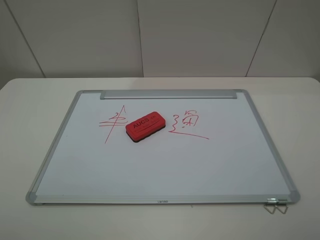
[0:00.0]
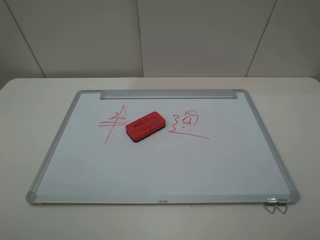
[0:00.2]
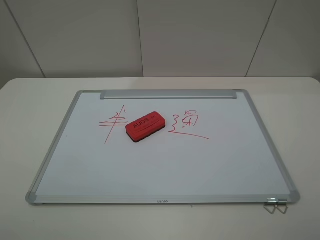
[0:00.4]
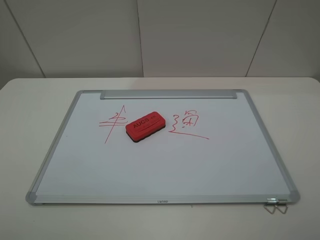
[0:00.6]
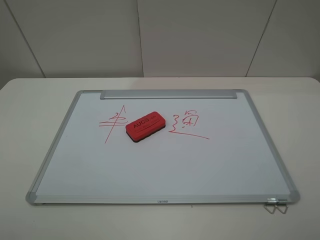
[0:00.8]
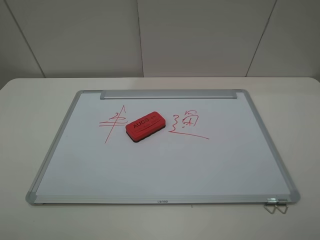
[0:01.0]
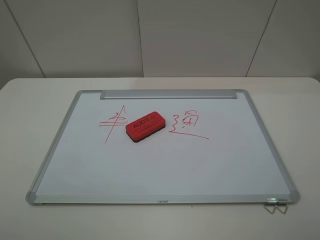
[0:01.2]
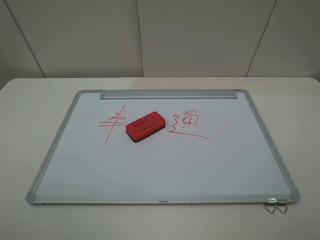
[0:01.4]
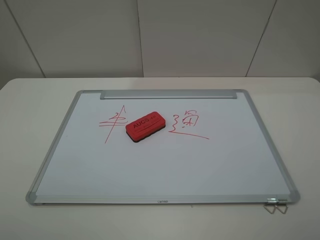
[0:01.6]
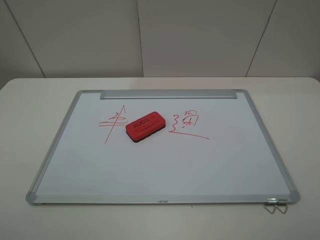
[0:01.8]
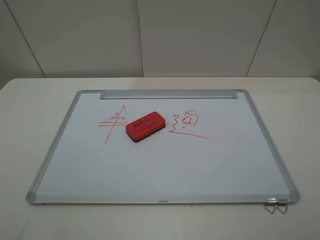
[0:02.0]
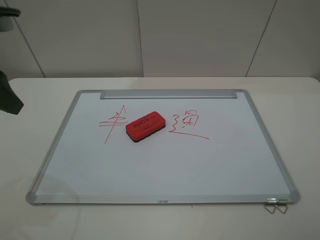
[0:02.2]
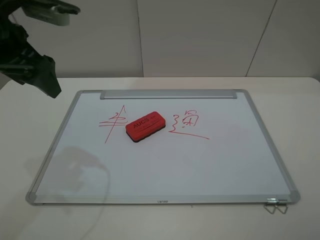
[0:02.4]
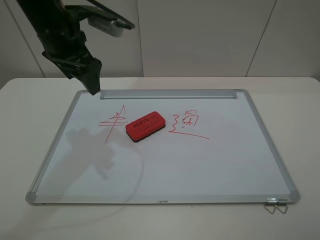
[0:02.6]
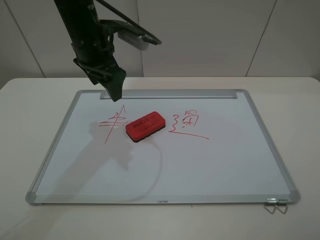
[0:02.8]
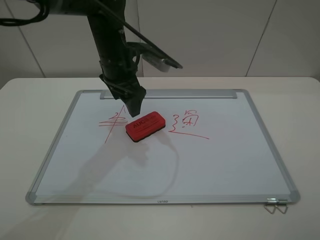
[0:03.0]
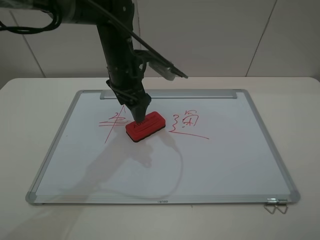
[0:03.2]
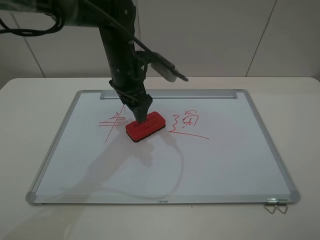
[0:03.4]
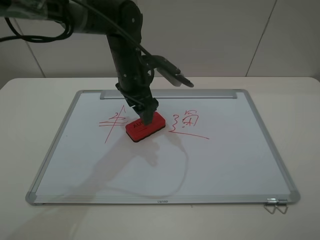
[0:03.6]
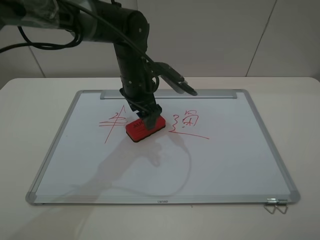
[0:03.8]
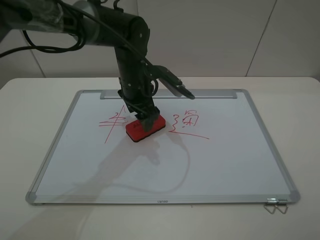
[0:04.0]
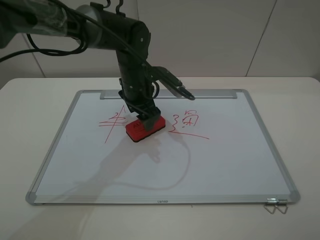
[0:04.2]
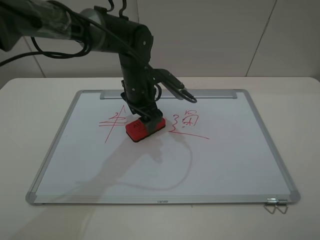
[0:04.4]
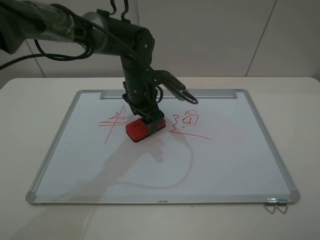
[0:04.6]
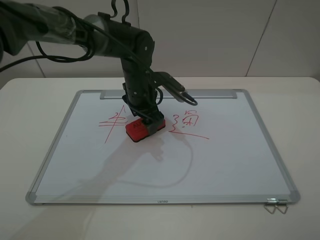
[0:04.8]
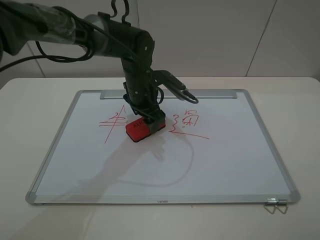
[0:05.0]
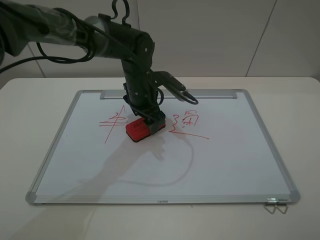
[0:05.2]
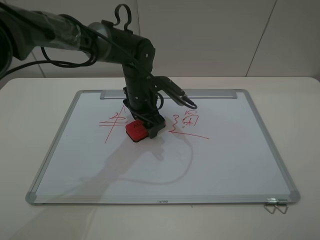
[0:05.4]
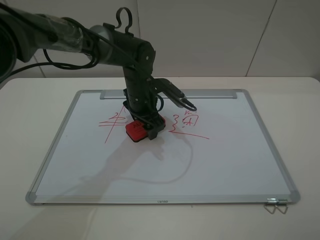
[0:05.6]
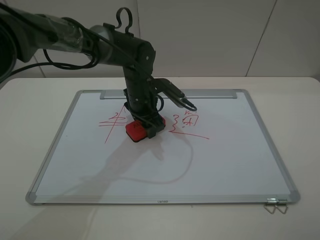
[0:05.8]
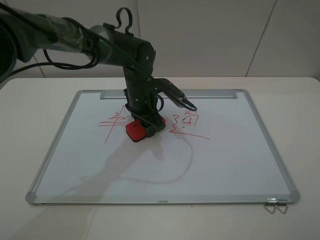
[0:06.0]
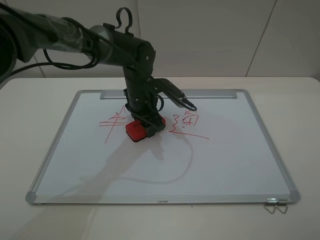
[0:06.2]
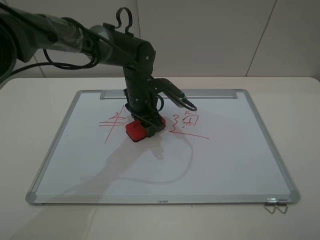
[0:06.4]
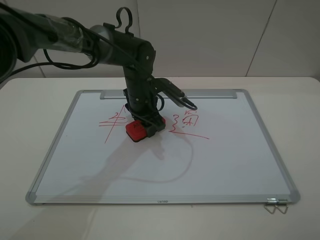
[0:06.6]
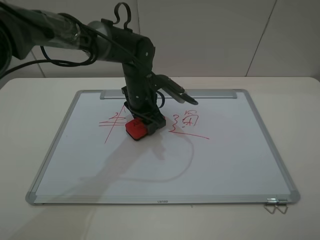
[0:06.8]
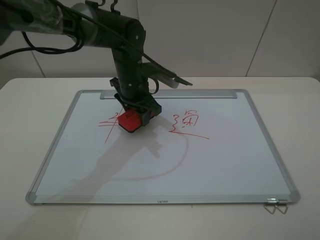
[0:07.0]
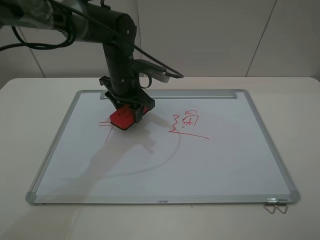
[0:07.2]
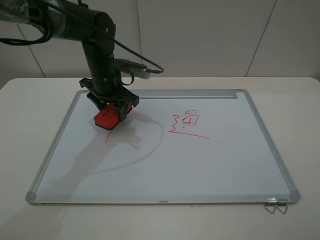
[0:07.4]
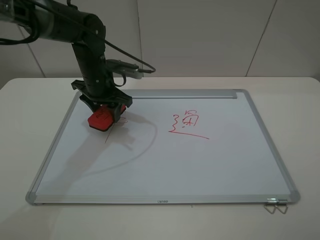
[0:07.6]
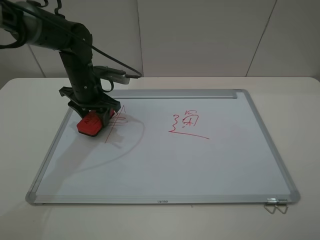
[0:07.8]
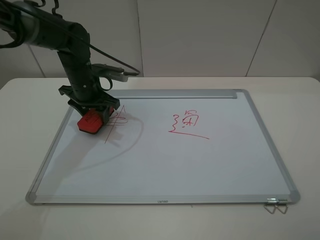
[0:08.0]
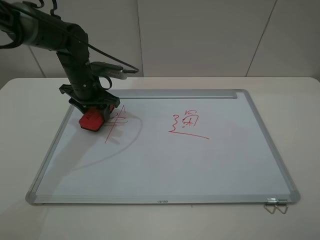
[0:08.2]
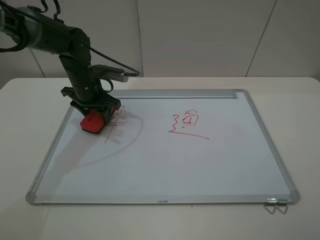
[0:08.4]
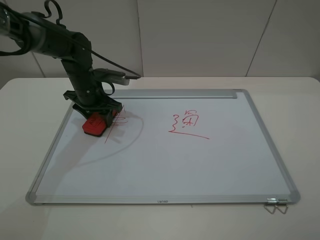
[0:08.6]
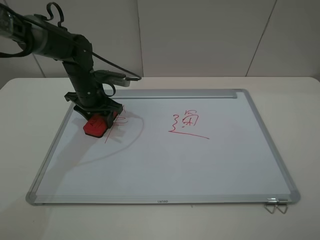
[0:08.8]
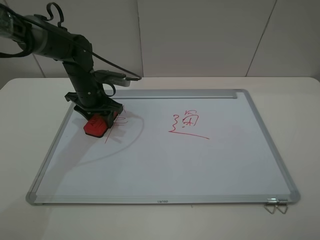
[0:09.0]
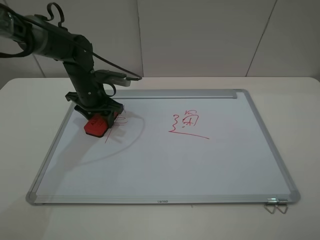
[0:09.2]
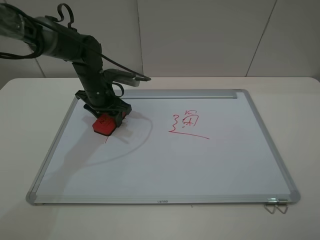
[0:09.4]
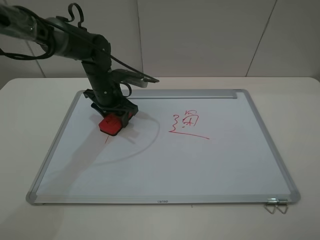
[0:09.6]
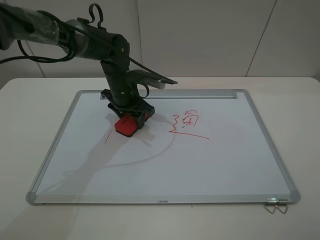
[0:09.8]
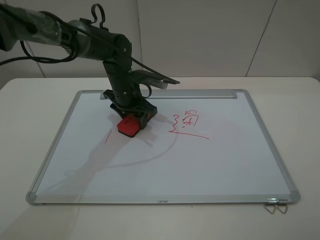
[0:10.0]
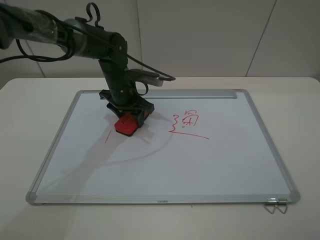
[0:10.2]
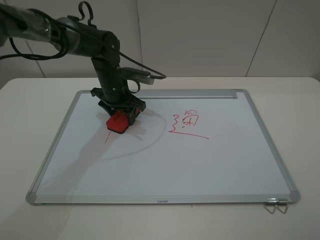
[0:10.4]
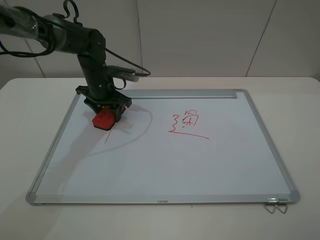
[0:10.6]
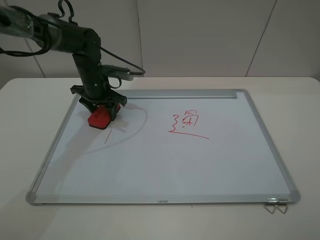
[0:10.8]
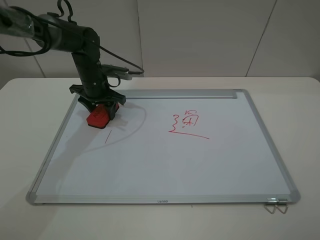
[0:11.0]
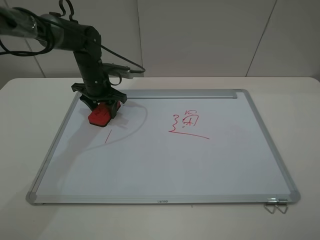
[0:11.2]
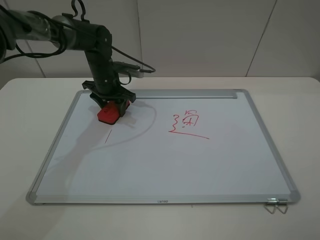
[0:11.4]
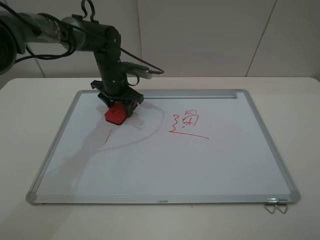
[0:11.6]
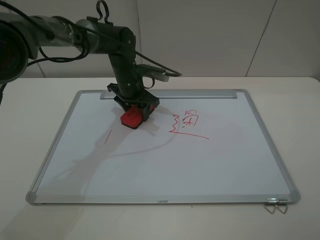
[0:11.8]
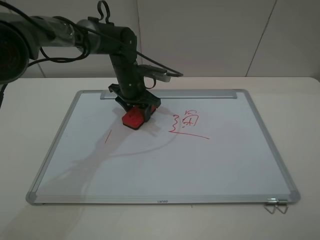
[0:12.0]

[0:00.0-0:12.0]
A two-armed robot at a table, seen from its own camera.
Step, 0.0 to 5.8 s: Grasp the eraser with the left gripper.
0.0 to 1.6 s: Neither gripper changes place.
1.6 to 3.0 s: The left gripper heads forward and to the right, covering some 40 cm.
3.0 to 4.4 s: The left gripper moves downward, approximately 5 cm.
4.4 to 6.0 s: The left gripper closes its fingers.
6.0 to 7.6 s: The left gripper goes roughly 10 cm to the left.
7.6 to 9.0 s: The grippers move only a little.
10.4 to 12.0 s: The left gripper shifts approximately 5 cm to the right.

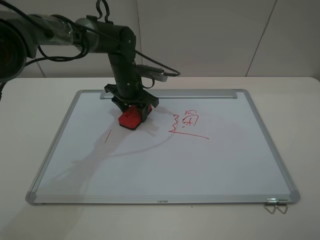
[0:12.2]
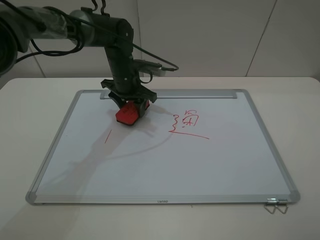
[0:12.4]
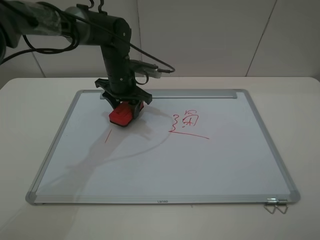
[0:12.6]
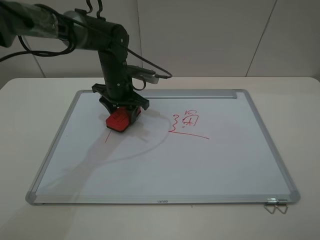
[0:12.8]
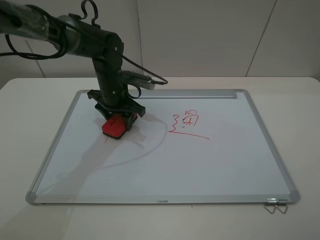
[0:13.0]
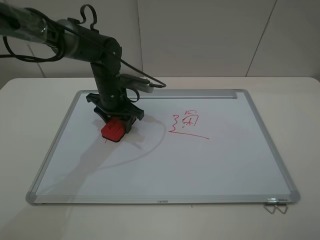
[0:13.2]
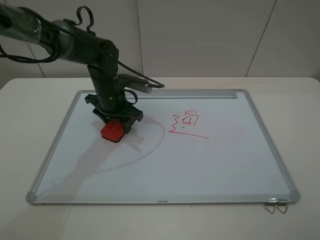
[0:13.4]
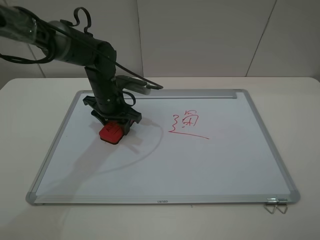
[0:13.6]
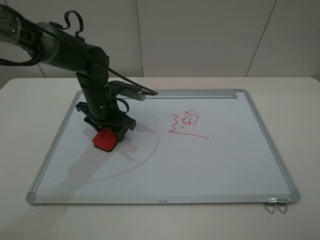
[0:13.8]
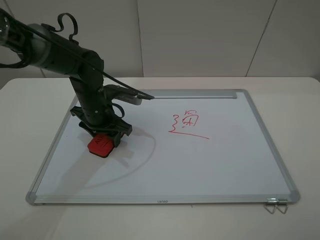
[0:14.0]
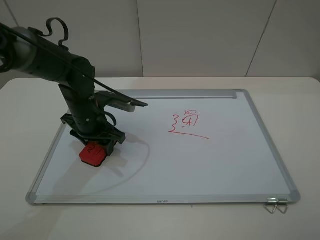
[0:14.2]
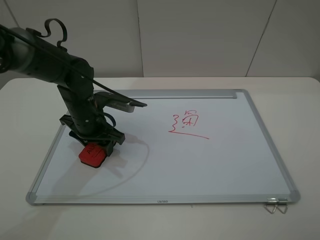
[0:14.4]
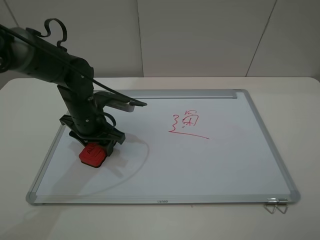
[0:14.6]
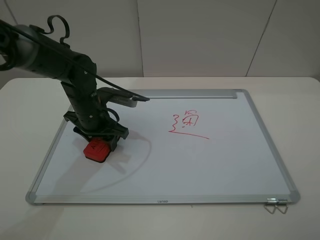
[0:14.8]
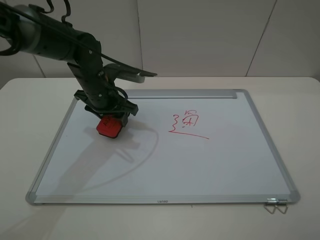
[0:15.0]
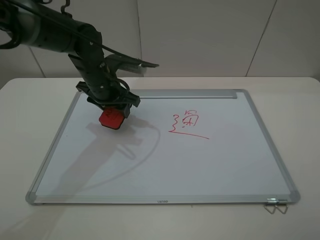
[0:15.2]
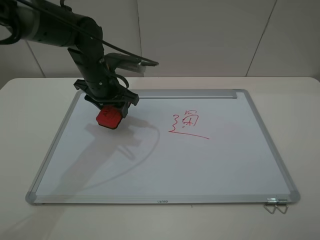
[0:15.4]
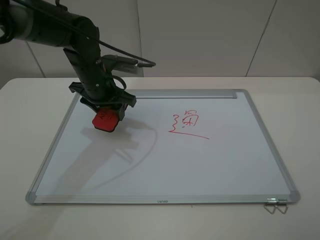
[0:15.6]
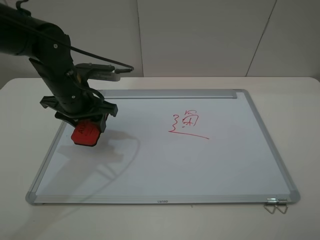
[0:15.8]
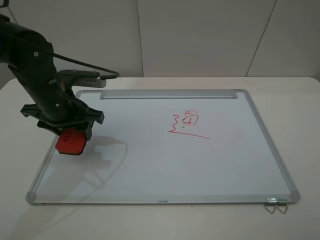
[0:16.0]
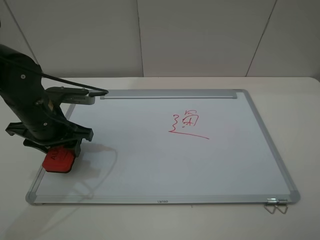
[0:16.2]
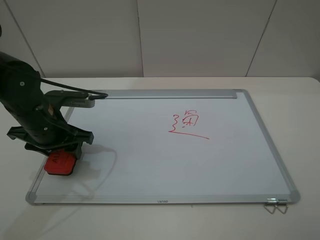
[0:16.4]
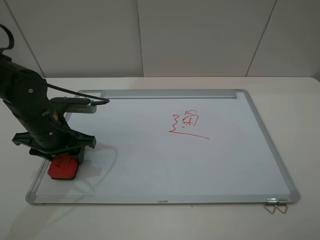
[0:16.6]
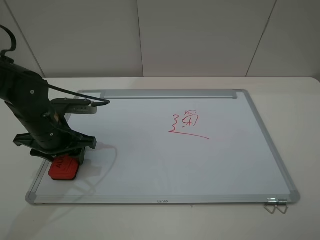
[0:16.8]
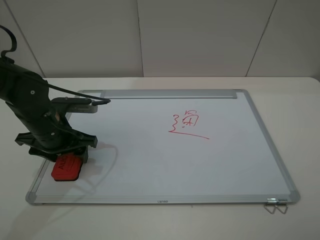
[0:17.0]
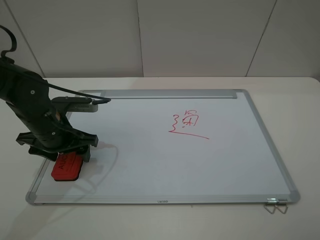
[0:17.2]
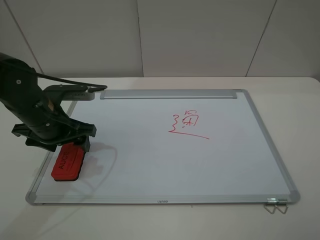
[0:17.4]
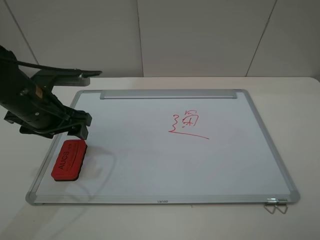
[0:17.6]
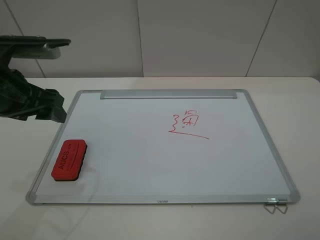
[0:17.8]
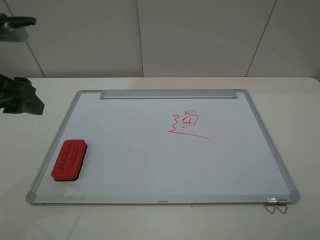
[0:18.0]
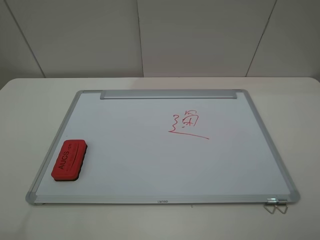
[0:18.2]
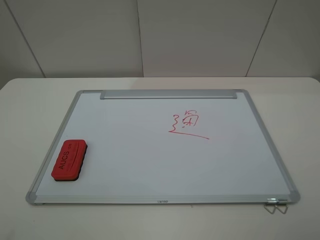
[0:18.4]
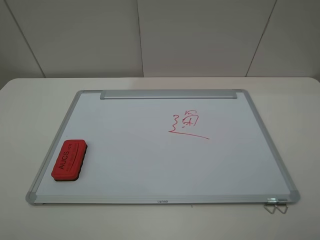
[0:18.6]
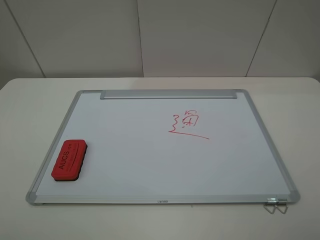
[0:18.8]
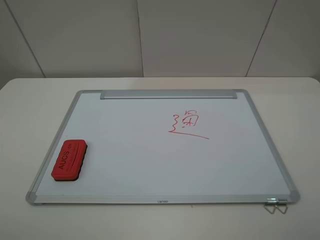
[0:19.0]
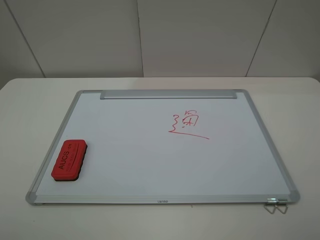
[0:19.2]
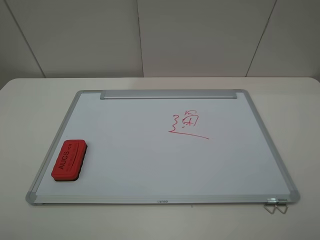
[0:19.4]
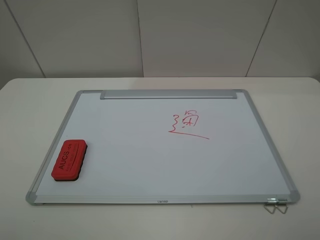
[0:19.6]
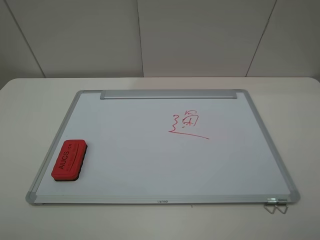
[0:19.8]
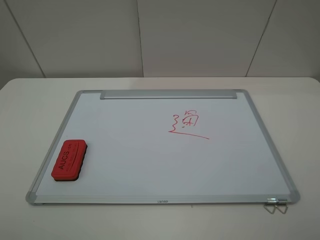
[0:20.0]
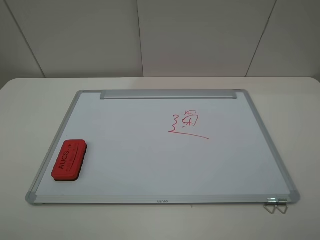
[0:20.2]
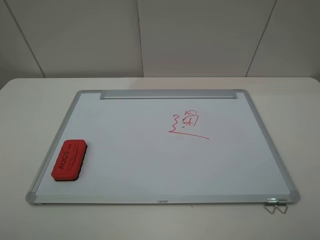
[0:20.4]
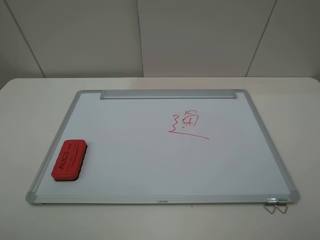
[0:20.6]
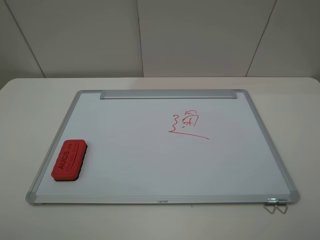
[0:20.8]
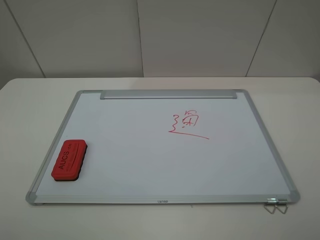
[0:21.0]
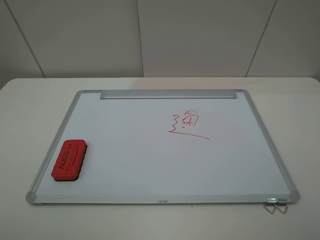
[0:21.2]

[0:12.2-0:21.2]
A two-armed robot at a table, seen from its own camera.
Step, 12.2 to 15.0 s: Grasp the eraser and wipe the blackboard with the left gripper.
Step, 15.2 to 17.4 s: Place the eraser with the left gripper.
12.2 to 13.8 s: The left gripper moves backward and to the left, some 10 cm.
13.8 to 15.2 s: The left gripper heads upward, covering about 5 cm.
15.2 to 16.6 s: The left gripper travels backward and to the left by roughly 15 cm.
16.6 to 18.2 s: The left gripper goes approximately 25 cm upward and backward, and opens up.

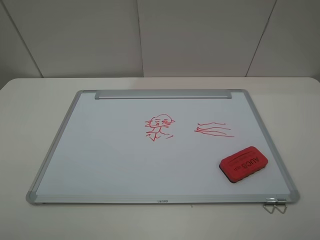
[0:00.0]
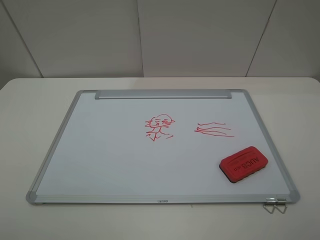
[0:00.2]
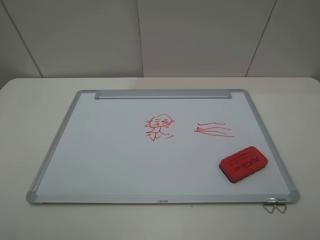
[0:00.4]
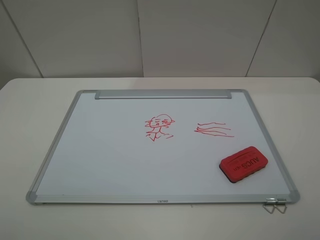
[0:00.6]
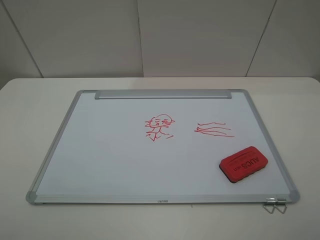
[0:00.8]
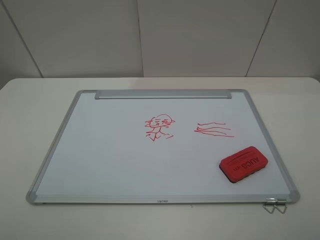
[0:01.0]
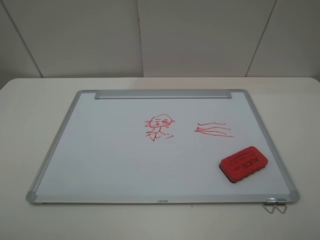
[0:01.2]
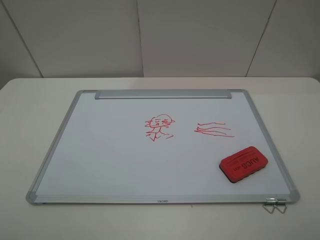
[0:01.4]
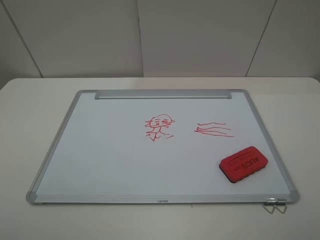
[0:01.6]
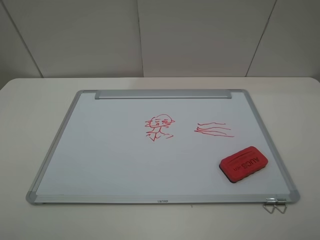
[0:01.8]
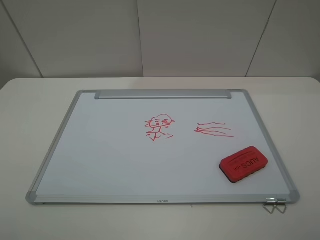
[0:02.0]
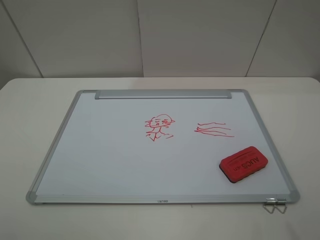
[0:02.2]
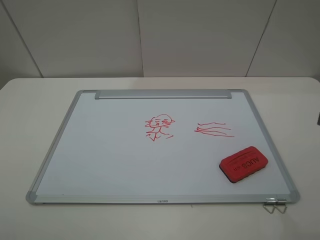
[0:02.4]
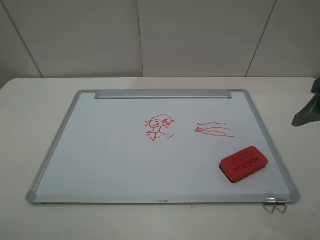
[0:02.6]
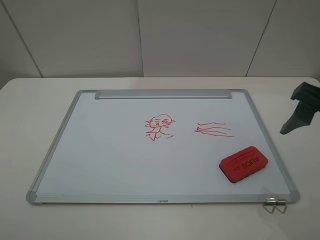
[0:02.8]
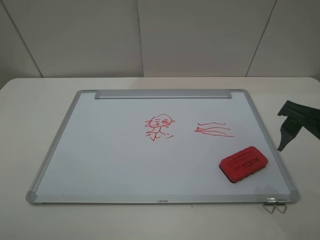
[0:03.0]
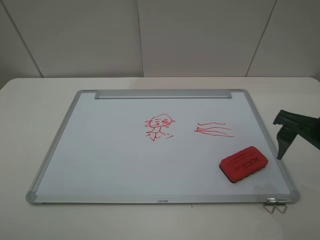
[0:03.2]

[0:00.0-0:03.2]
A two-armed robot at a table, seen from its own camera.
0.0 to 1.6 s: Both grippers stay put.
1.6 to 3.2 s: The right gripper goes about 20 cm forward.
